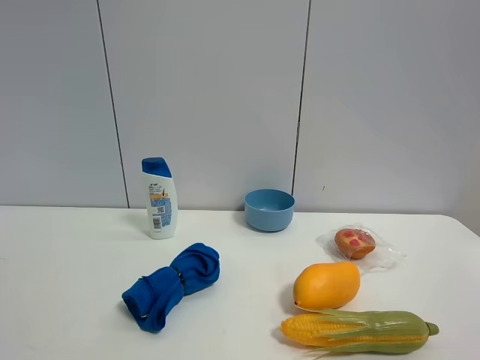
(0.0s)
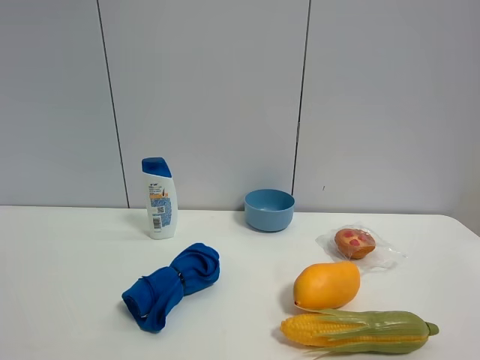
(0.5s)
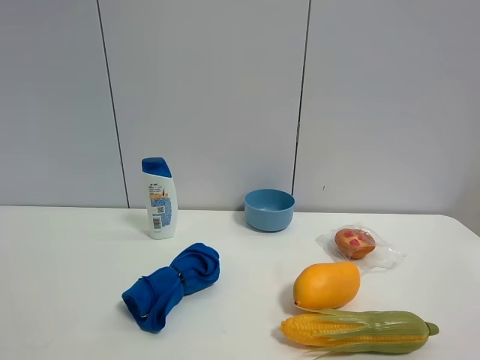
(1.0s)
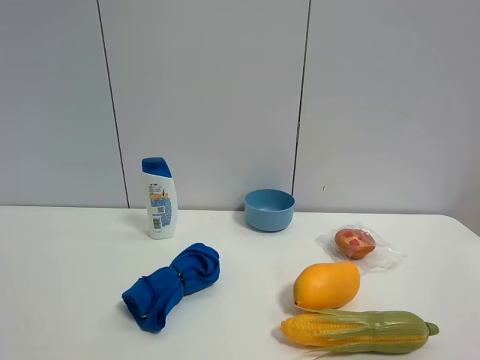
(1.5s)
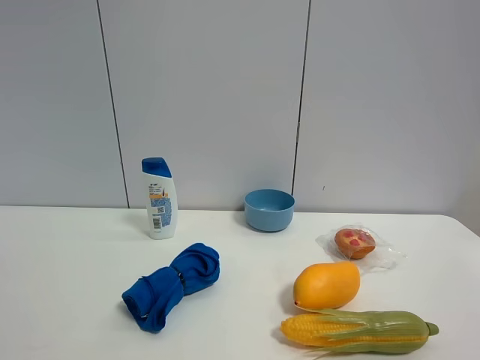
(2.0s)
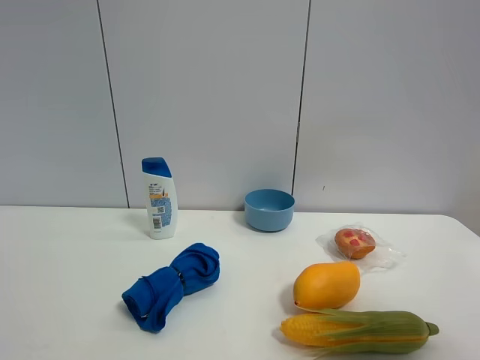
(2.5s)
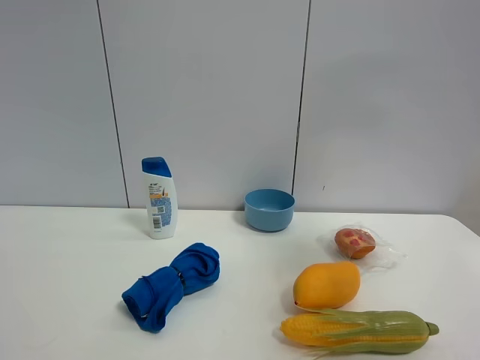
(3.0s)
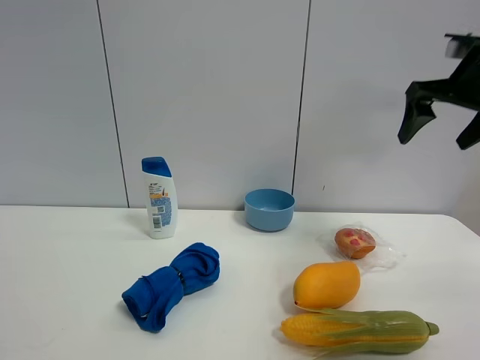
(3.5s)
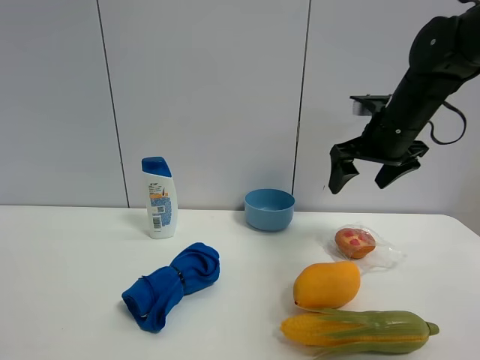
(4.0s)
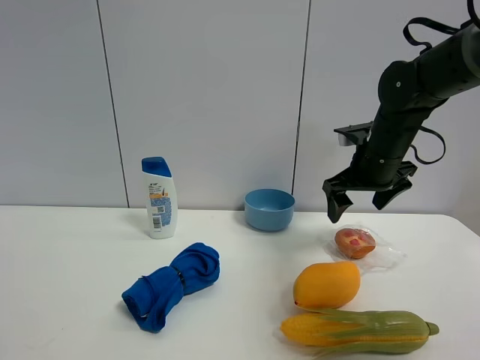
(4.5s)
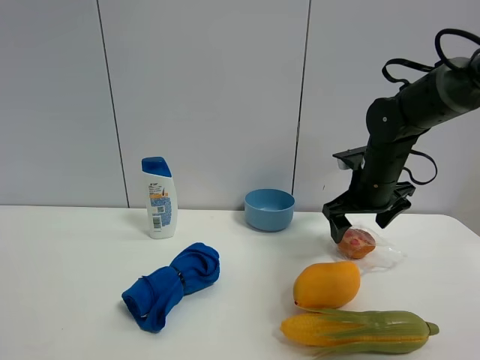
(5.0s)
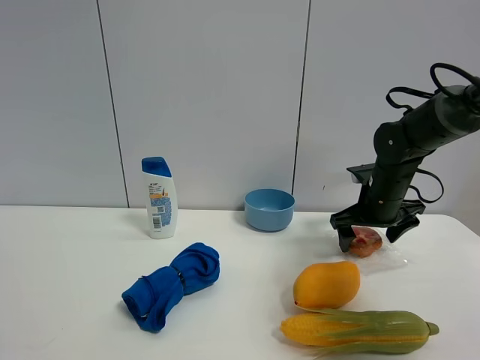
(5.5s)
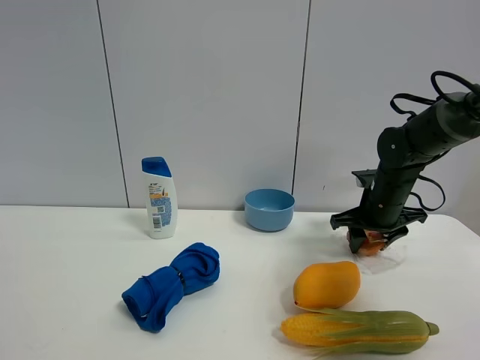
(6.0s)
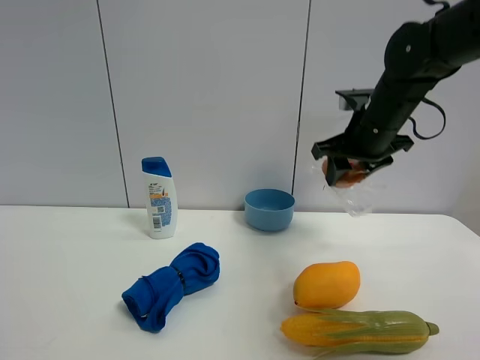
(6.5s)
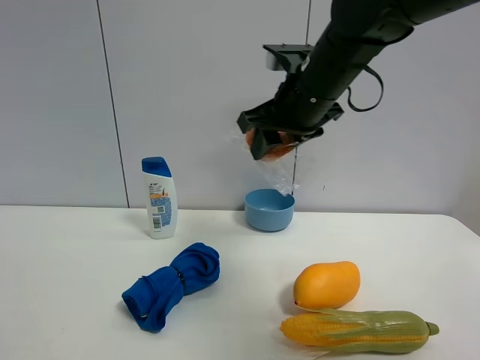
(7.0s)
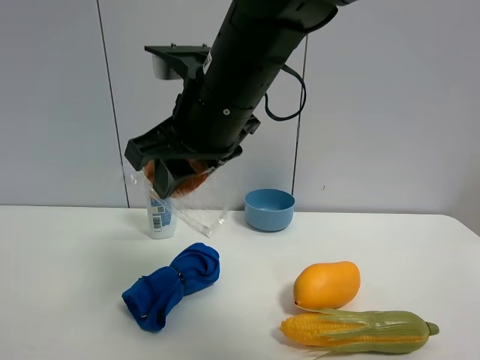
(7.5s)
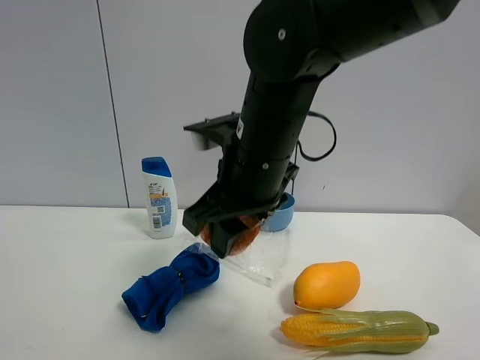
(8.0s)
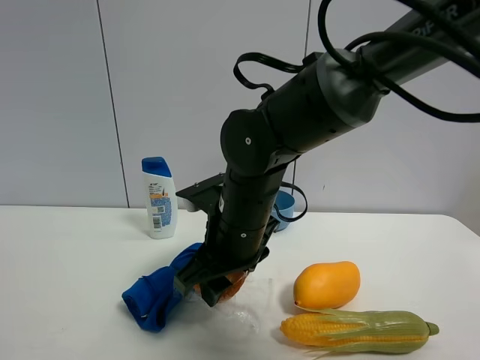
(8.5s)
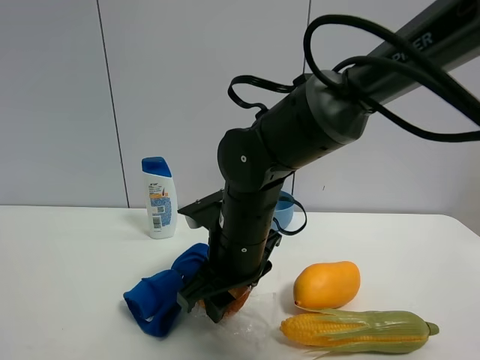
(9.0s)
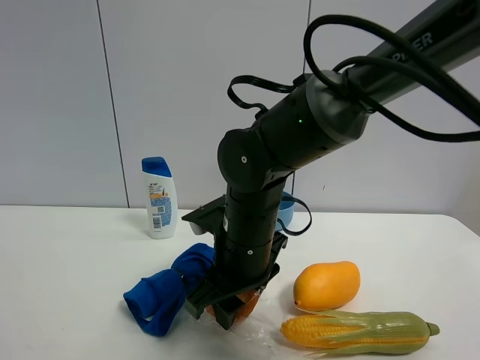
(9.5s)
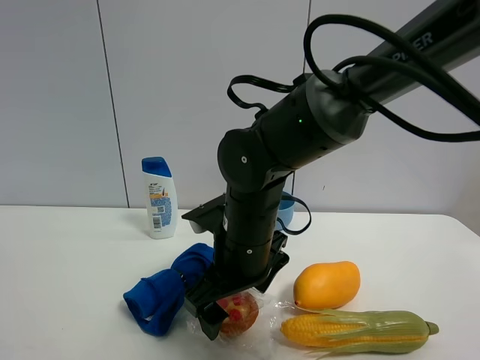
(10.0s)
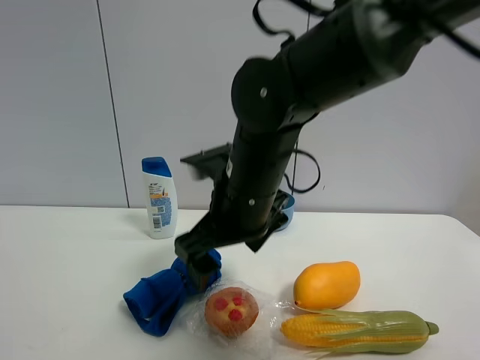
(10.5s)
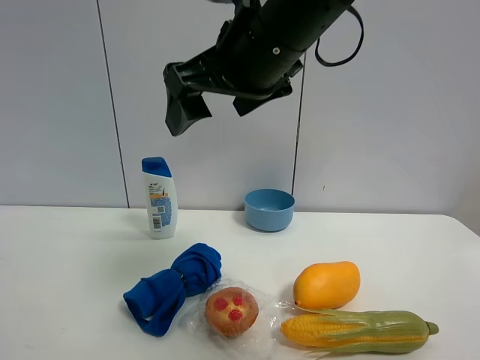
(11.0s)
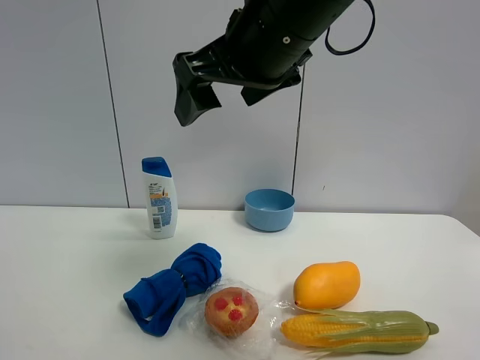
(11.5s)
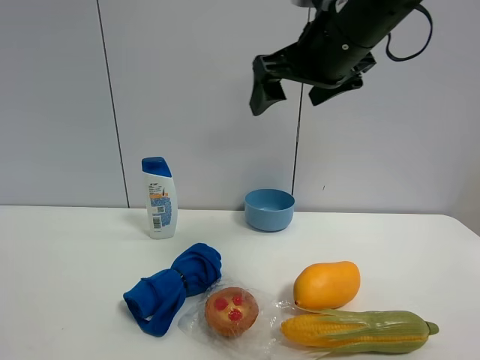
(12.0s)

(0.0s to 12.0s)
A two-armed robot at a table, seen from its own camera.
Task of the whole recording: the gripper move the object.
Step, 0.0s - 5.5s: Grasp the egg tart with the right gripper.
Step, 6.0s - 10.5s: Place the egg tart on the table with the right gripper.
0.0s - 2.0s: The two grippers keep their place.
2.0s - 4.0s: The right gripper is displaced forward by approximately 40 cm.
4.0s - 6.0s: The right gripper travels downward by about 15 cm, and closes its fingers.
6.0s - 8.0s: The right gripper heads to the left, backward and upward, covering some 30 cm.
8.0s - 10.0s: The right gripper travels downward by approximately 10 cm, and opens its fingers.
10.0s - 12.0s: The right gripper goes roughly 25 cm upward and to the right.

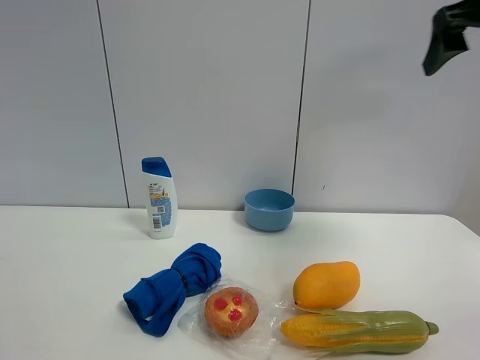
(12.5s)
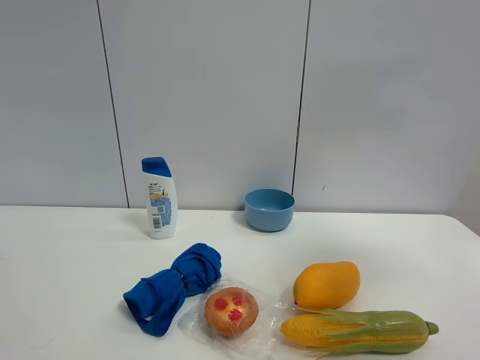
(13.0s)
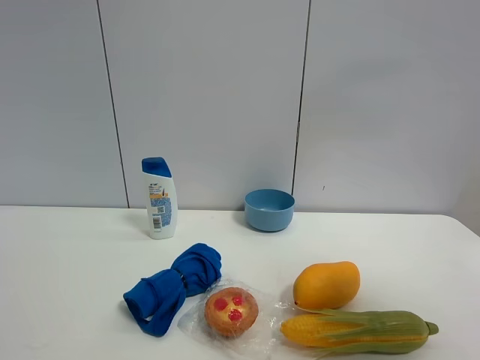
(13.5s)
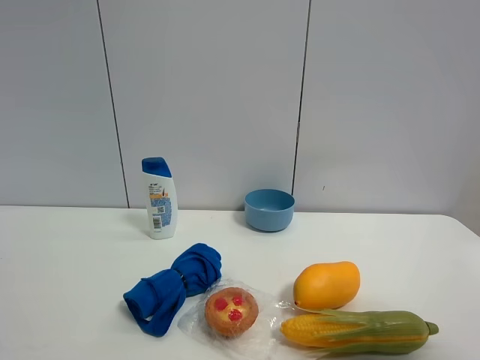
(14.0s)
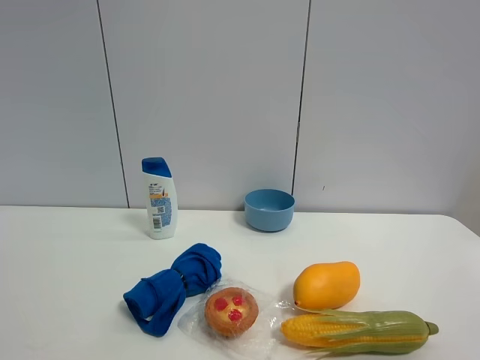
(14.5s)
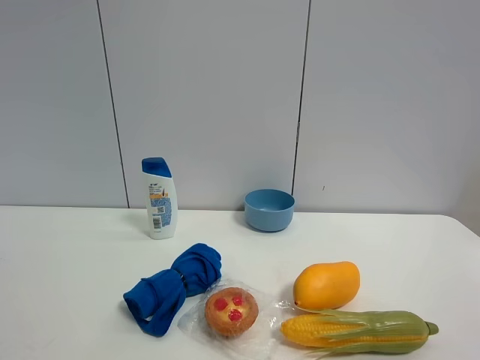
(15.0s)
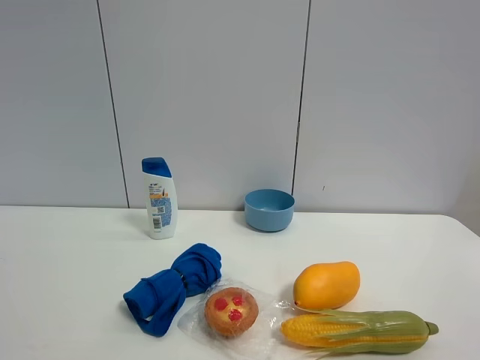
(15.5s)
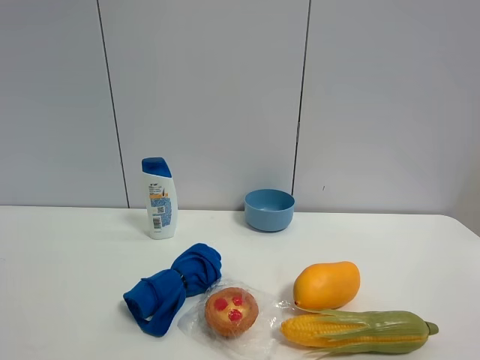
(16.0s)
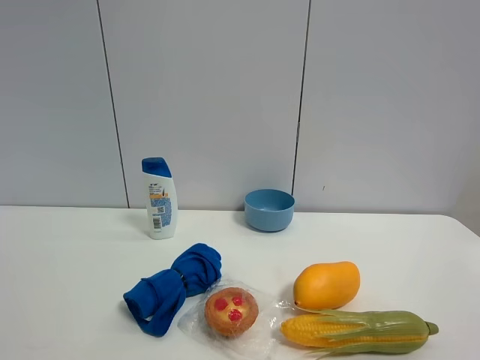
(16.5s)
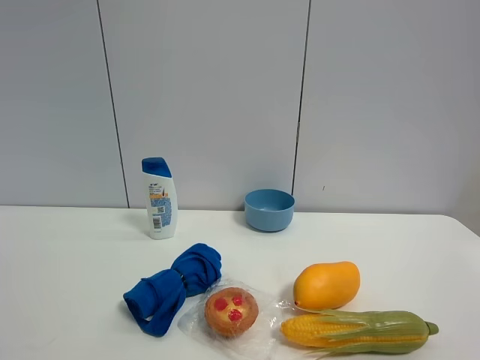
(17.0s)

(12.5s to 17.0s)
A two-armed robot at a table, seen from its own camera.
Task of the whole recording: the gripper move the object.
12.5s - 14.5s: The right gripper goes approximately 30 cm backward.

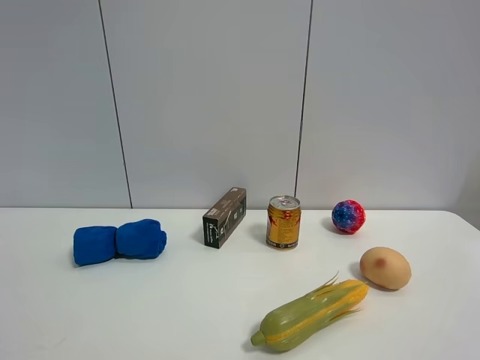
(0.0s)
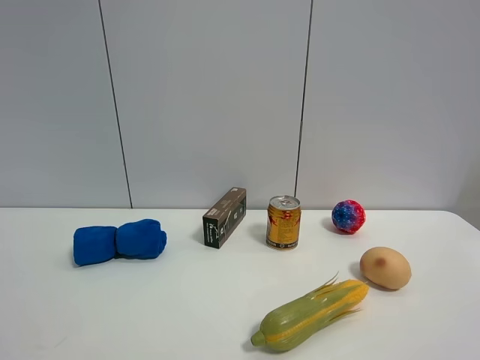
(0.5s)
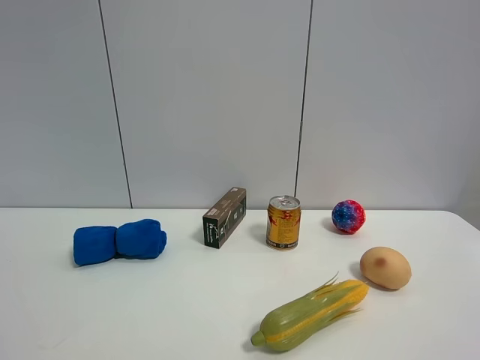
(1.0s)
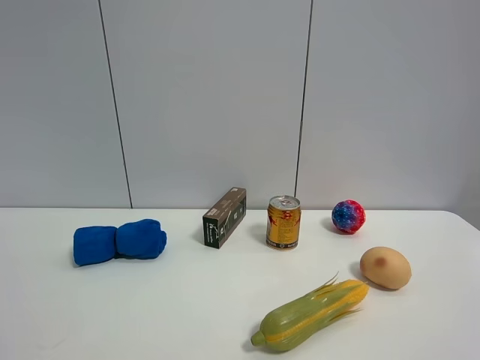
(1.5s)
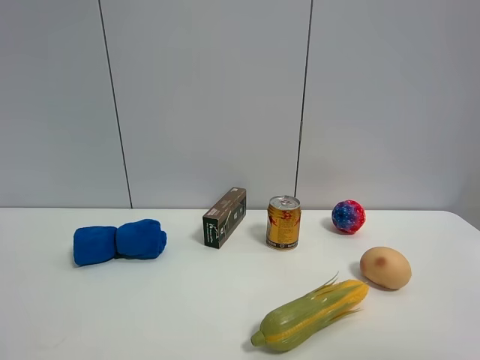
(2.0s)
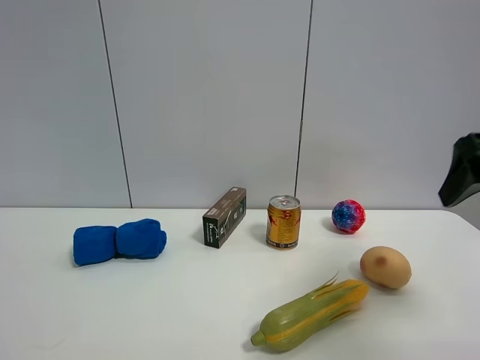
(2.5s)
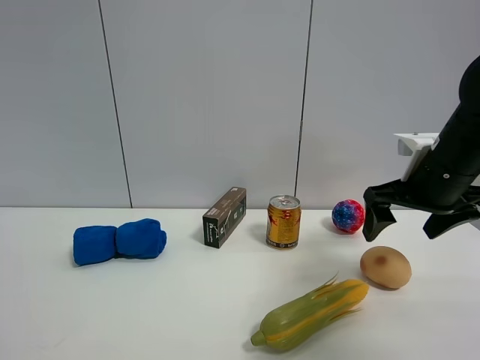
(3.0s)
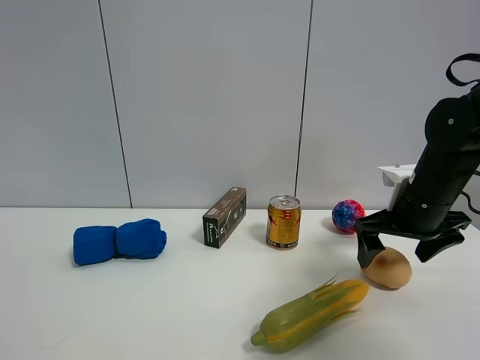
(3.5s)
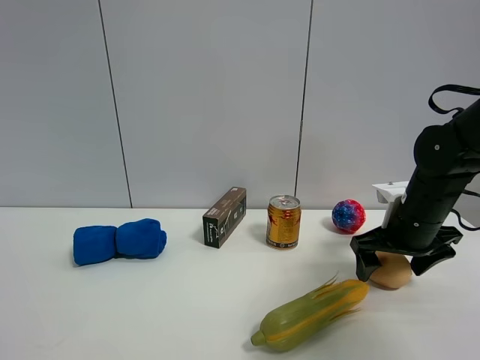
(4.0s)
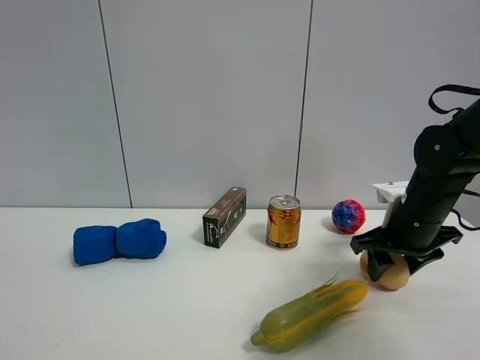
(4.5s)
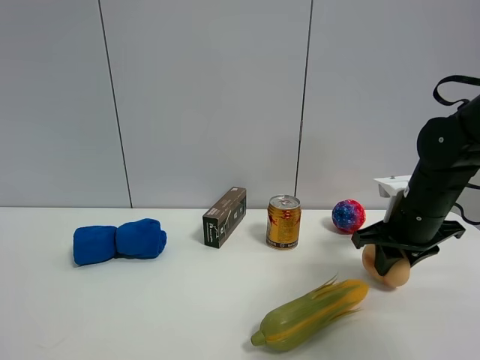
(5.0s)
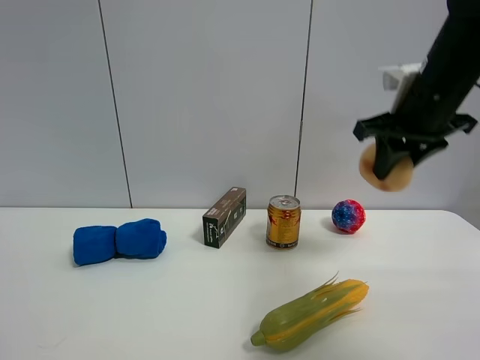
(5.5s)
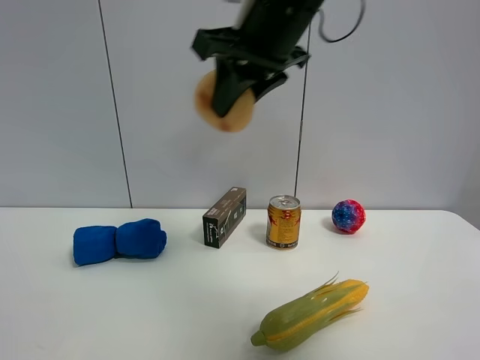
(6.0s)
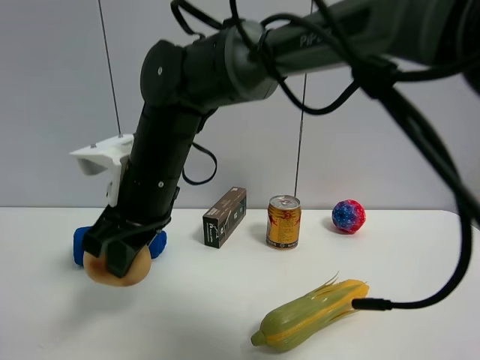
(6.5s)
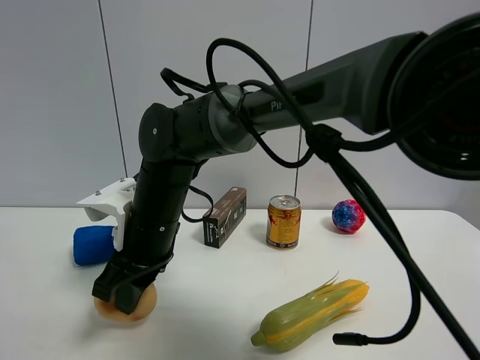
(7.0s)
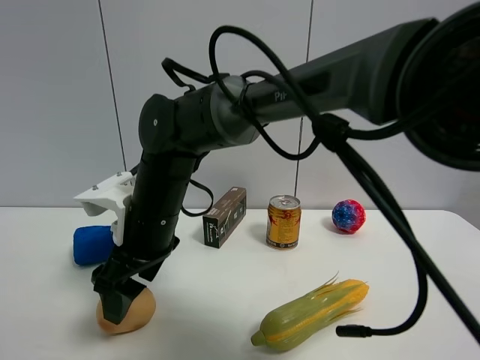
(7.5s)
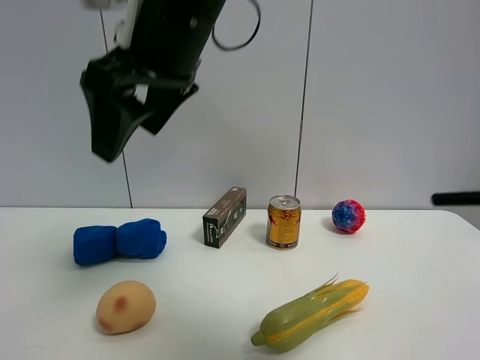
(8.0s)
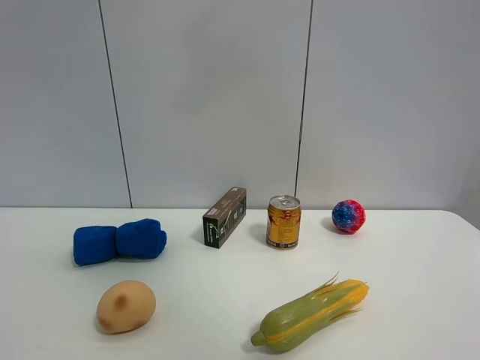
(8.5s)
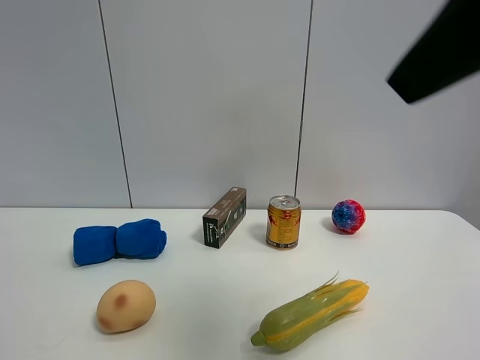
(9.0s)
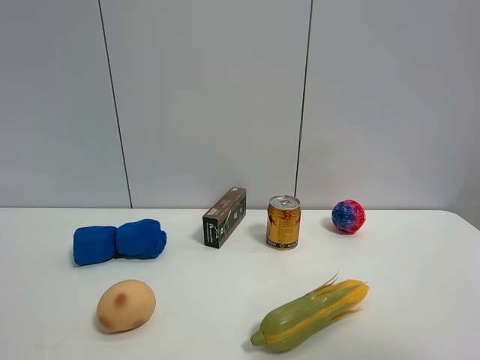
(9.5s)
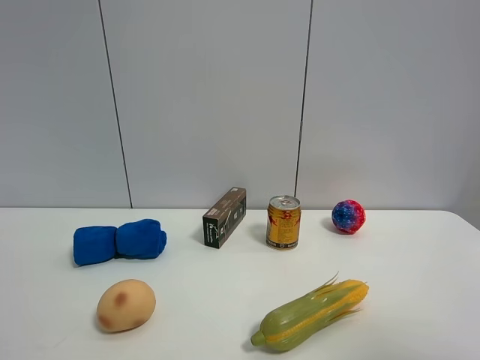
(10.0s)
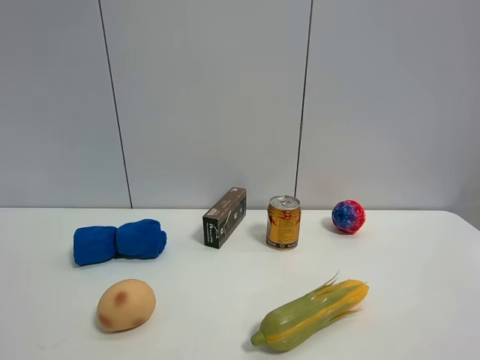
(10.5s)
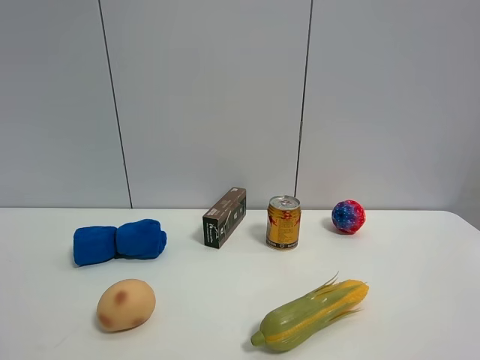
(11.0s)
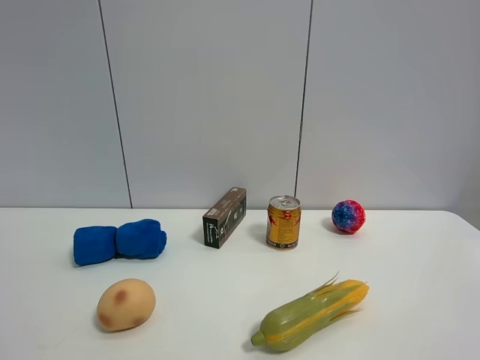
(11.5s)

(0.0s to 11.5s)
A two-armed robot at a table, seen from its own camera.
Task of the whole recording: the gripper move the object.
Step, 0.0s - 4.5s: Grasp the egg yolk pastry with the right gripper.
Step, 5.0s - 7.0s: Place the egg yolk pastry on the table with the right gripper.
2.0s - 4.0s: The right gripper shifts approximately 35 cm forward and downward.
4.0s - 6.0s: The right gripper goes about 30 cm upward and to the left, and closes.
6.0s - 7.5s: The right gripper goes roughly 25 cm downward and to the left, and opens.
7.5s - 9.5s: The right gripper shifts roughly 50 cm to the right, backward and upward.
9.5s - 11.5s: The right gripper moves backward and downward, roughly 10 cm.
